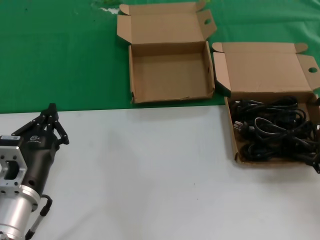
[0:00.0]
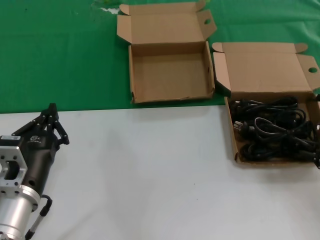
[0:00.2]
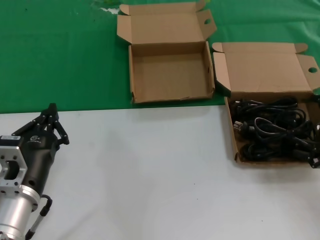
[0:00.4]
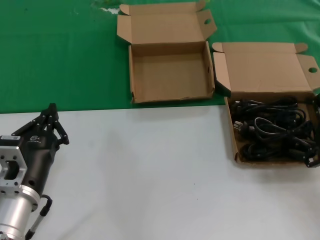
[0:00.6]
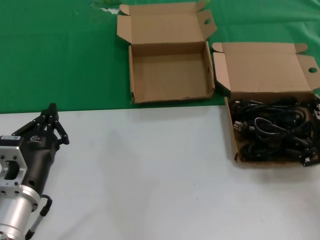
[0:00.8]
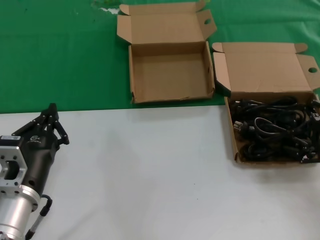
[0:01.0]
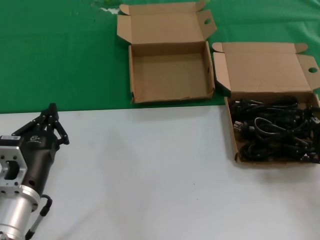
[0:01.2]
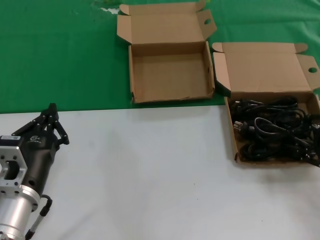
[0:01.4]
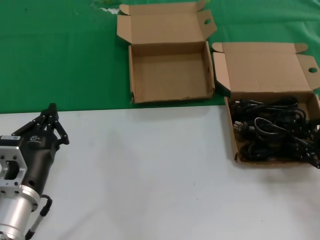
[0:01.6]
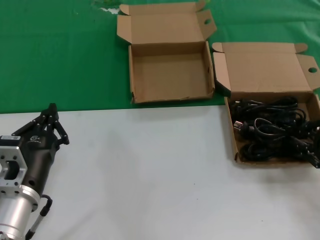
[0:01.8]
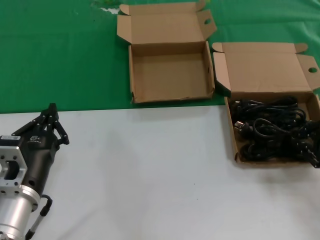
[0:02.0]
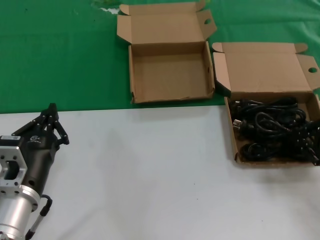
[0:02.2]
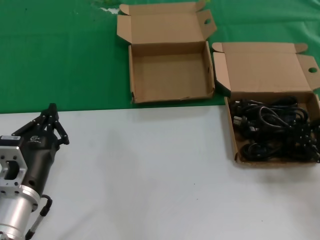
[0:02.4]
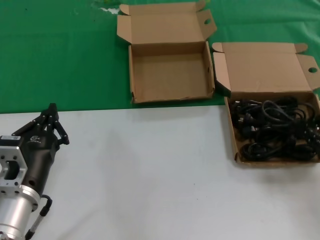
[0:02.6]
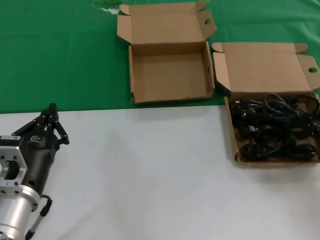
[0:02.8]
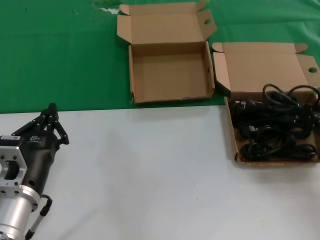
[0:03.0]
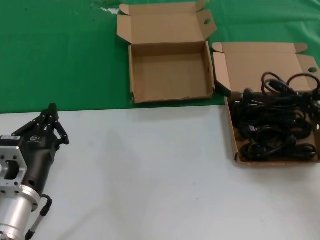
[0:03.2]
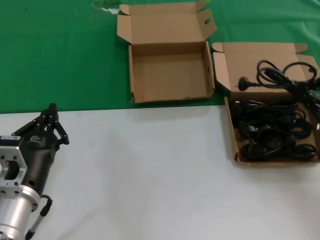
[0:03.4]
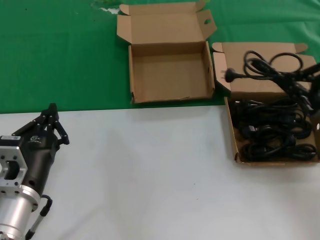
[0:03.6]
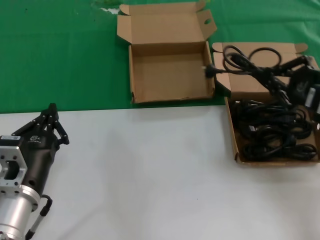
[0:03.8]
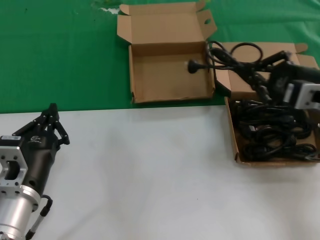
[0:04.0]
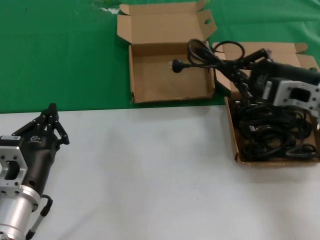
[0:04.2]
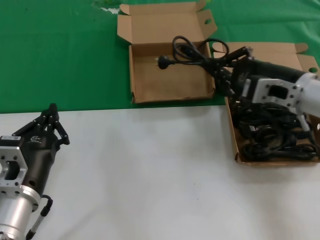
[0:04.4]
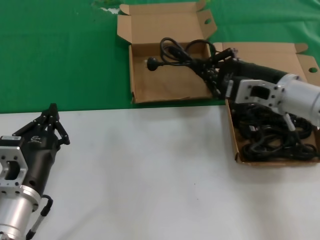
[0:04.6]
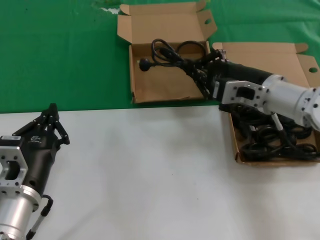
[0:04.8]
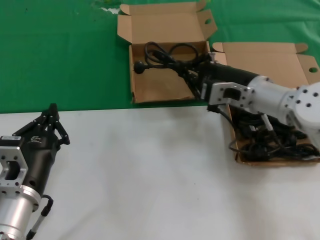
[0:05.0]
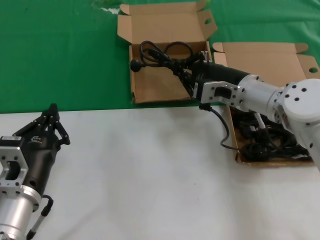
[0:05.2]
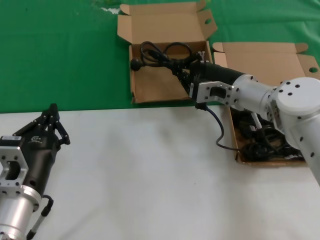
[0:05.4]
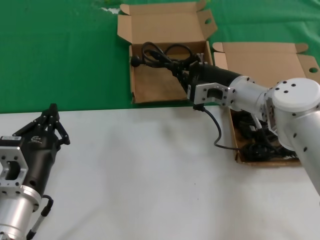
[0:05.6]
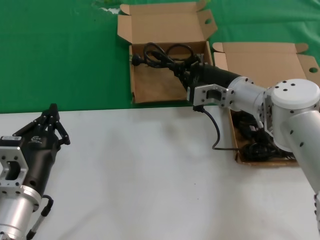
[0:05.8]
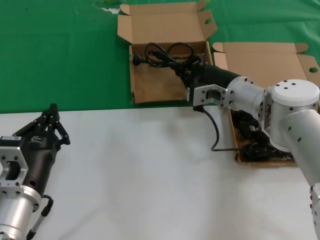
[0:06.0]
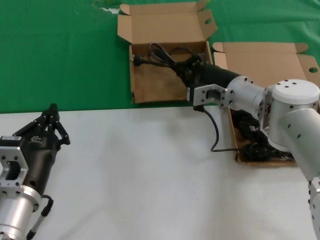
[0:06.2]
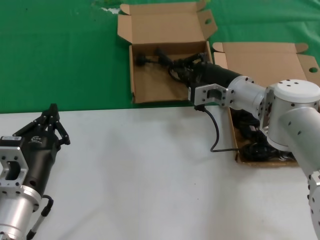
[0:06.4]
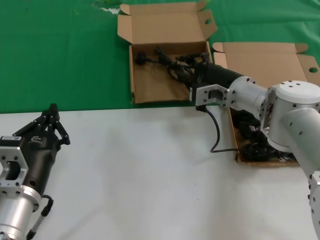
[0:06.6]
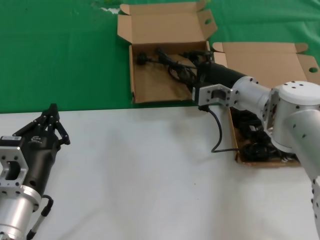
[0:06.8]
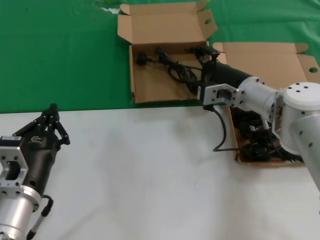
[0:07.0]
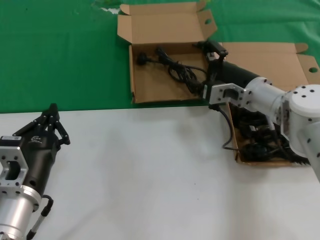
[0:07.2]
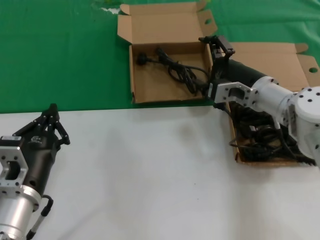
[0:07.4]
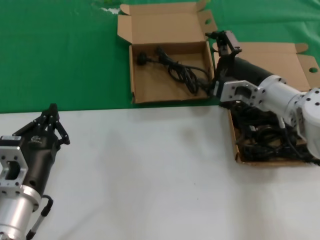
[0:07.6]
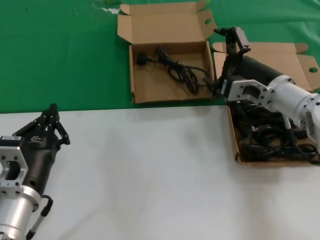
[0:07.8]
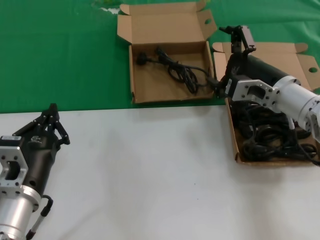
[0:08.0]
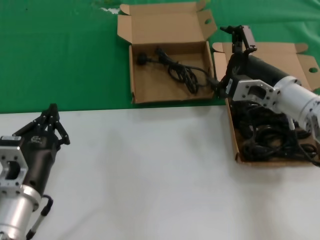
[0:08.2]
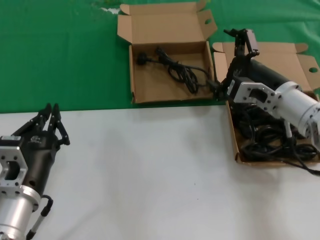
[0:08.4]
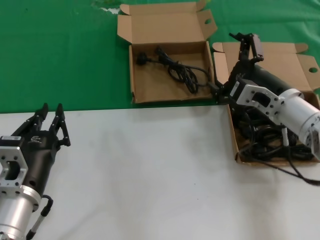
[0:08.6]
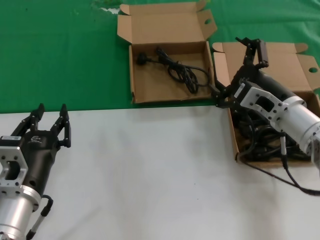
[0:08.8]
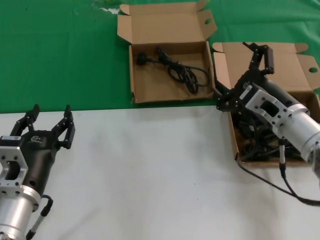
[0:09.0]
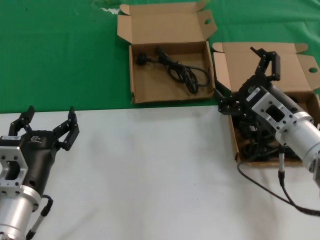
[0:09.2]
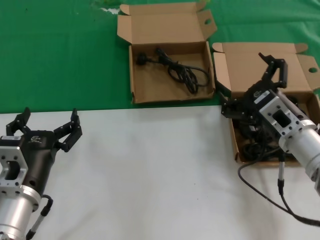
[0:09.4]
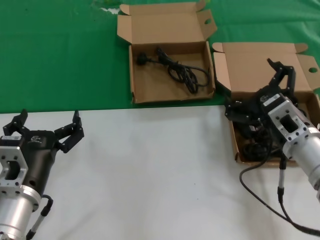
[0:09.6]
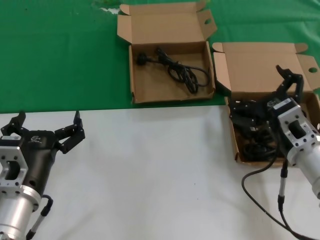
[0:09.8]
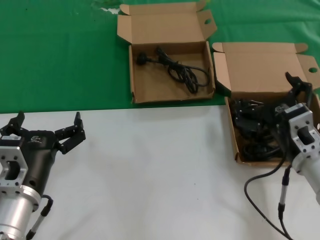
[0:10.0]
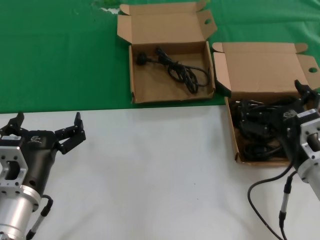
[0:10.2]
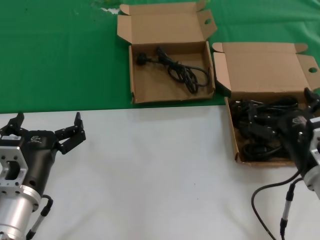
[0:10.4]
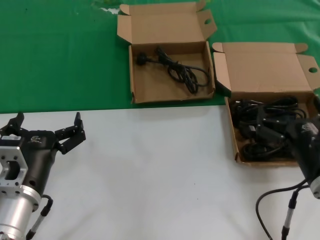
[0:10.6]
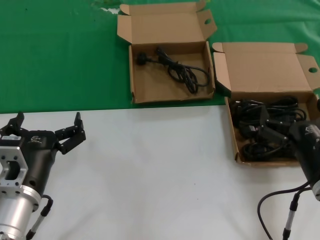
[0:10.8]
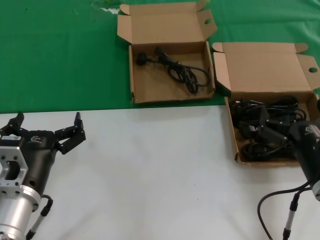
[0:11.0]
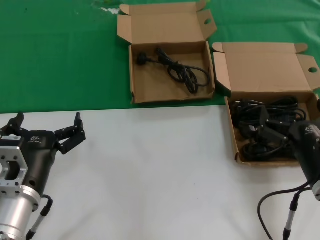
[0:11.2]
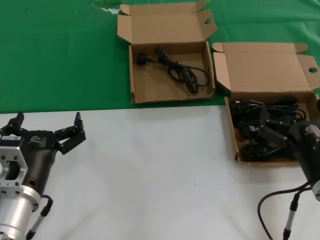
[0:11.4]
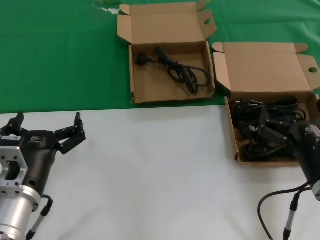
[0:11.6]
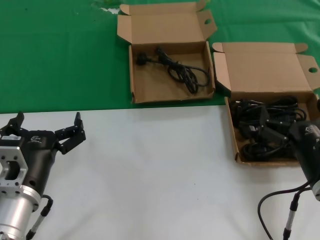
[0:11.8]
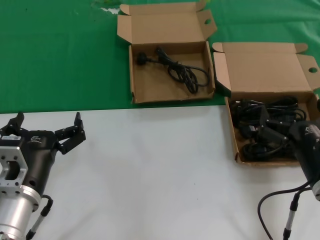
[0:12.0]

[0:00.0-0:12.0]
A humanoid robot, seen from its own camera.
Task of the whole recording: take the parts from the box containing them and put them into an empty box.
Step, 0:02.2 to 0:06.4: Place the data cable in the another box.
0:01.6 to 0:03.0: The right hand goes approximately 5 cm upward.
0:03.0 to 0:04.4: The right hand travels to the left and forward by approximately 15 cm.
0:04.4 to 0:06.0: The right hand is displaced forward, to the left and downward by roughly 15 cm.
0:06.0 to 0:07.6: The right hand moves some 5 cm.
0:07.6 to 0:09.0: The right hand shifts roughly 5 cm backward.
0:09.0 to 0:10.4: The right hand goes roughly 10 cm backward.
0:10.4 to 0:12.0: The hands make only small movements.

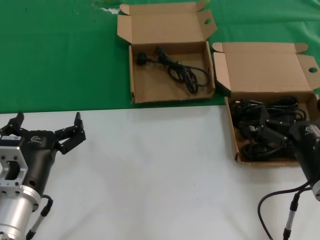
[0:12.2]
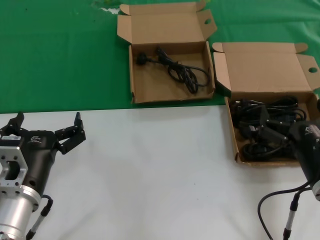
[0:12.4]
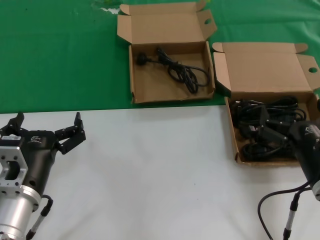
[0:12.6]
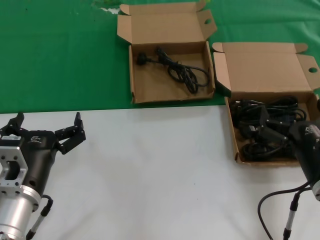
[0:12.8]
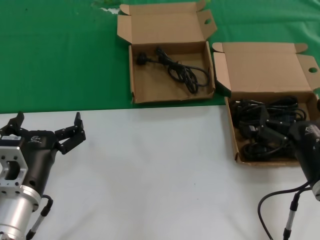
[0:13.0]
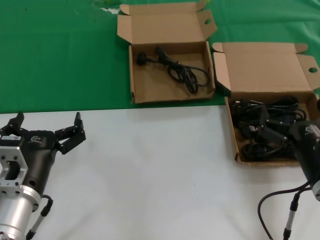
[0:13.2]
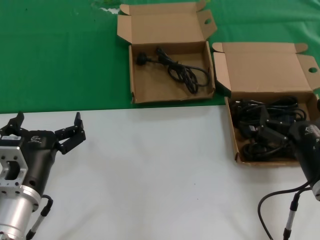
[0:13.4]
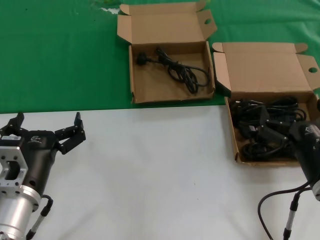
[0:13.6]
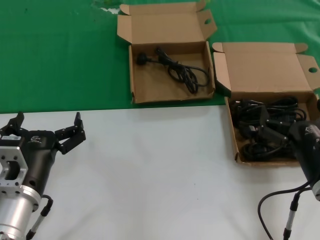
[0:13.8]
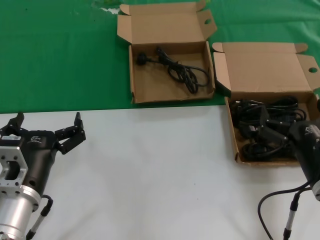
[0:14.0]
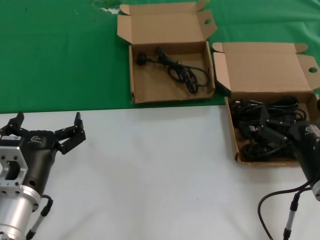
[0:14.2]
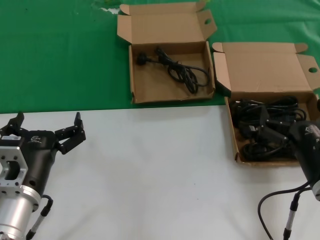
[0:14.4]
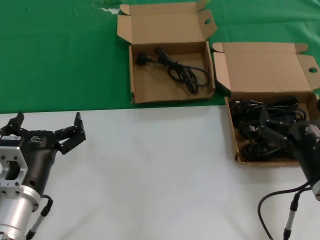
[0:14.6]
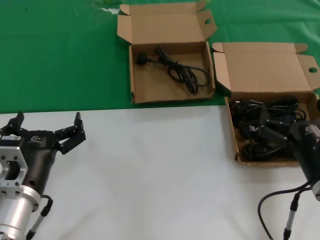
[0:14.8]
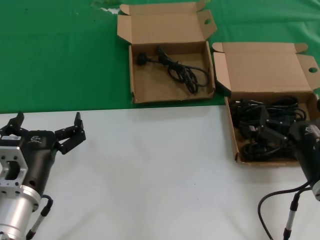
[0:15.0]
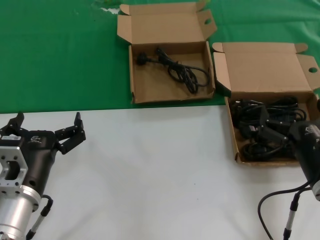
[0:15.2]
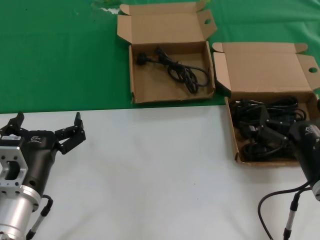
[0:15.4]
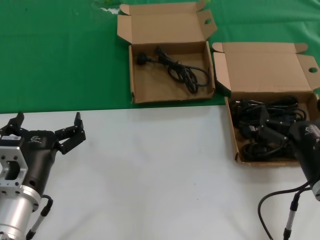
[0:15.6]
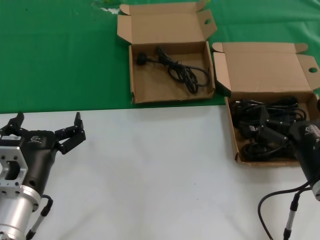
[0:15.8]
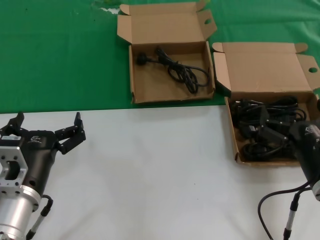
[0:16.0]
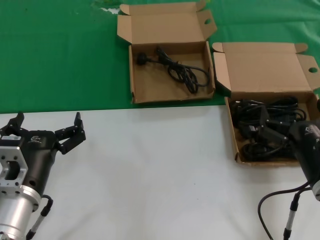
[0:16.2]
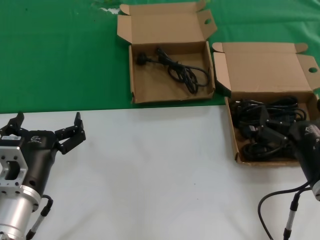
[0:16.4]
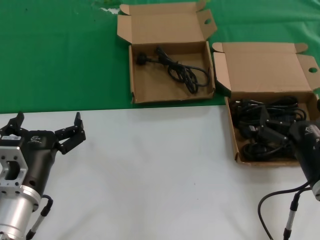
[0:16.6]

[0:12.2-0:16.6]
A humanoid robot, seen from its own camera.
Task of the whole recording: take the parts from the box containing them and put them into an empty box.
0:12.2 to 0:16.6: Neither hand changes place.
